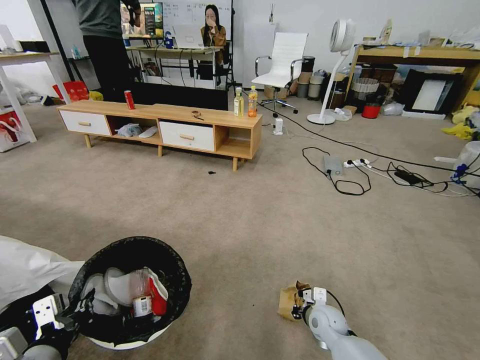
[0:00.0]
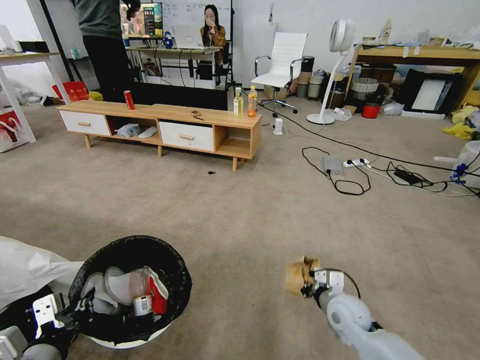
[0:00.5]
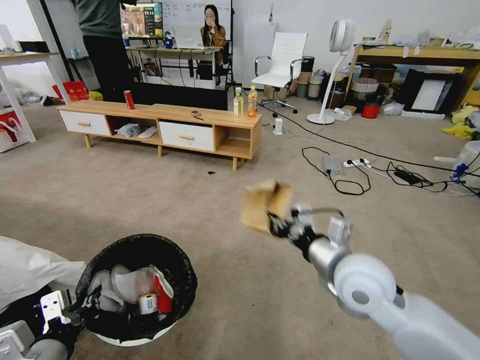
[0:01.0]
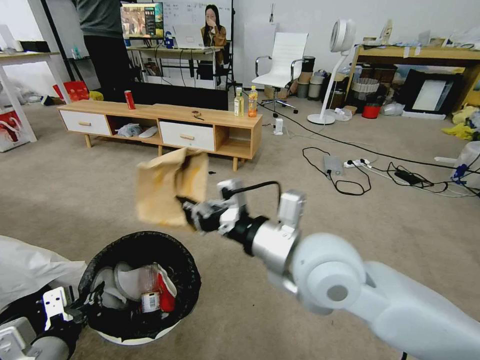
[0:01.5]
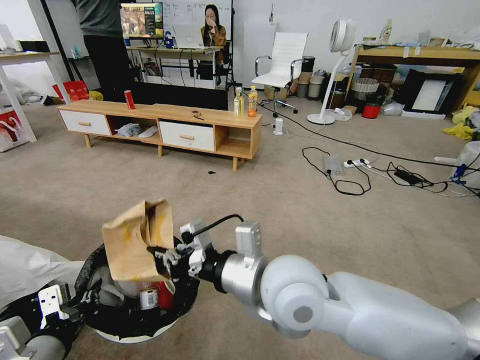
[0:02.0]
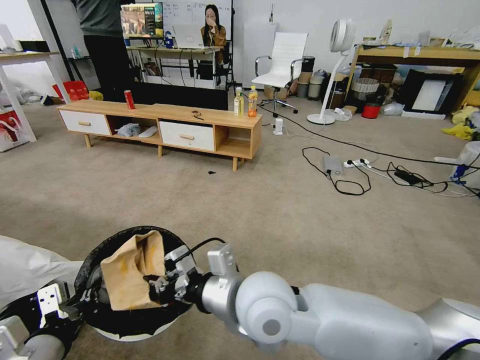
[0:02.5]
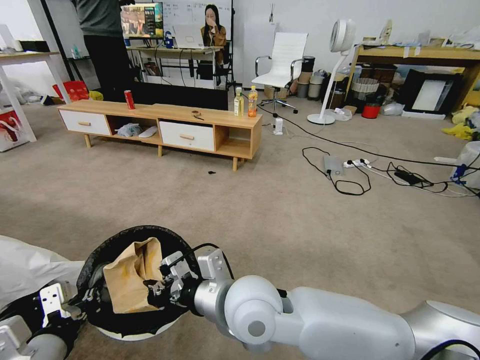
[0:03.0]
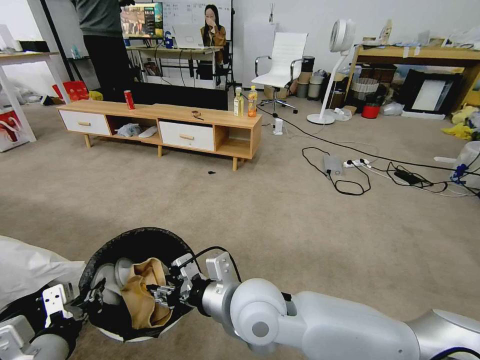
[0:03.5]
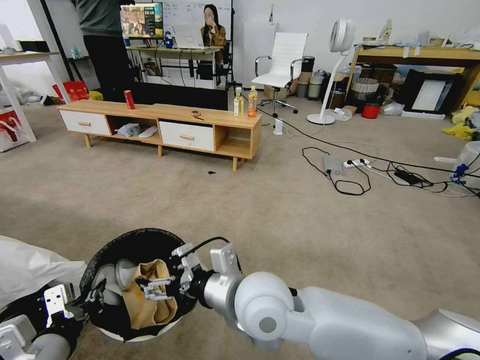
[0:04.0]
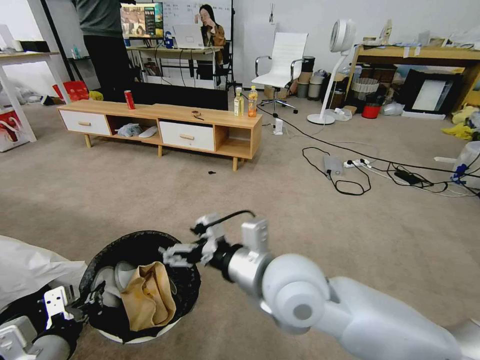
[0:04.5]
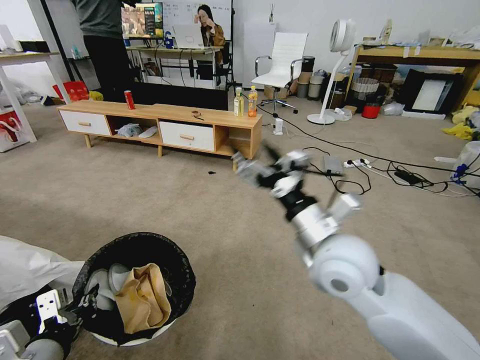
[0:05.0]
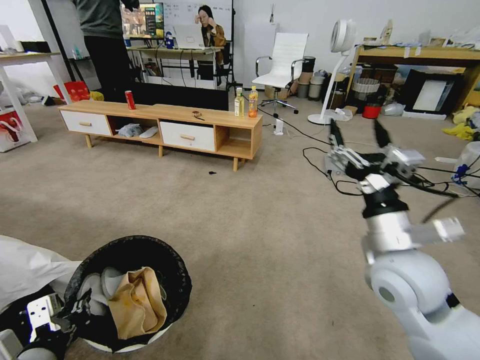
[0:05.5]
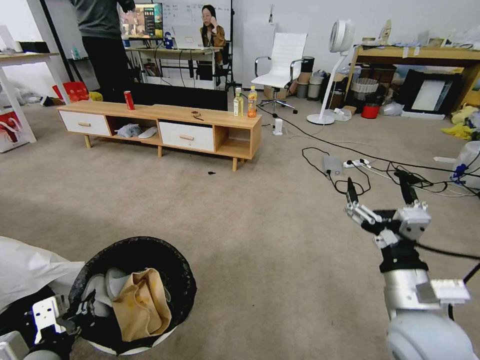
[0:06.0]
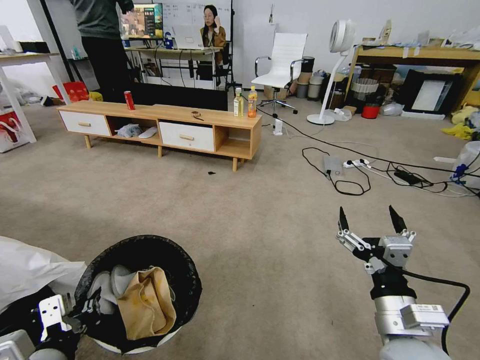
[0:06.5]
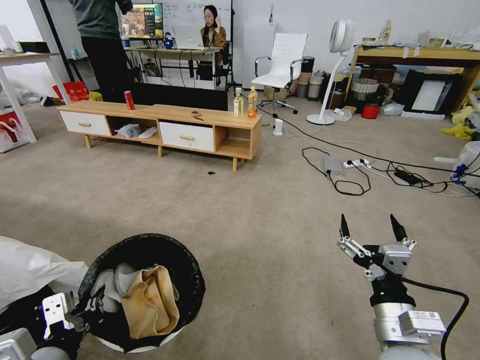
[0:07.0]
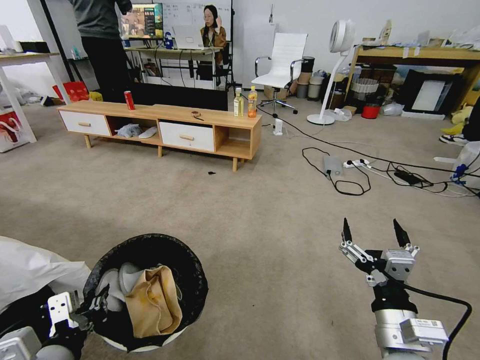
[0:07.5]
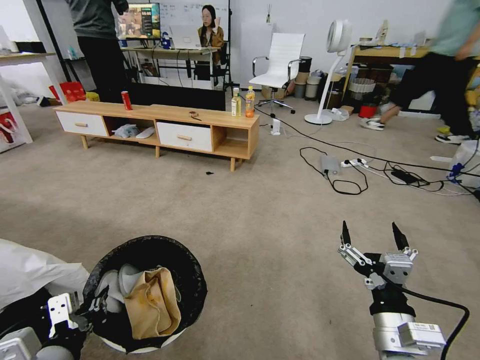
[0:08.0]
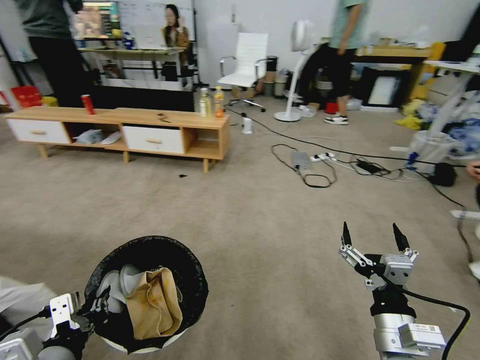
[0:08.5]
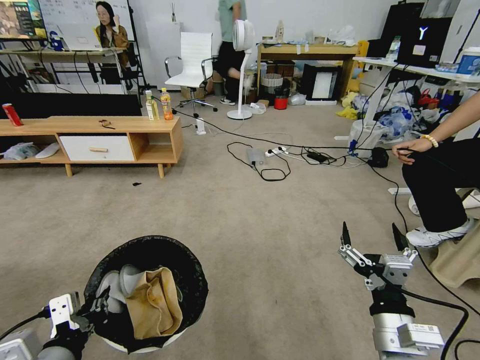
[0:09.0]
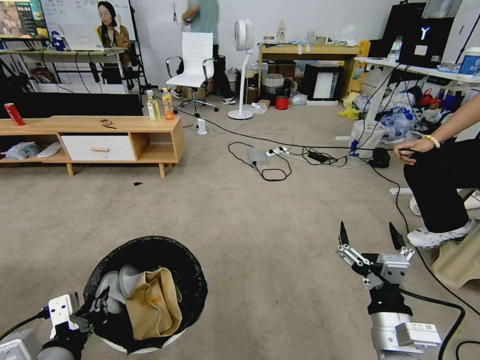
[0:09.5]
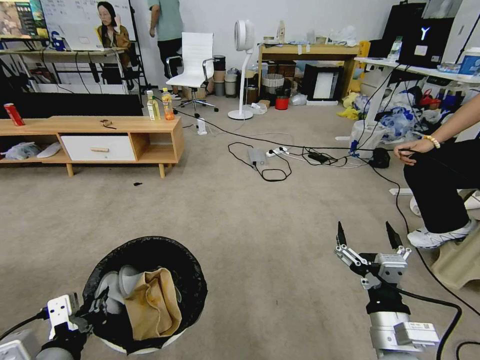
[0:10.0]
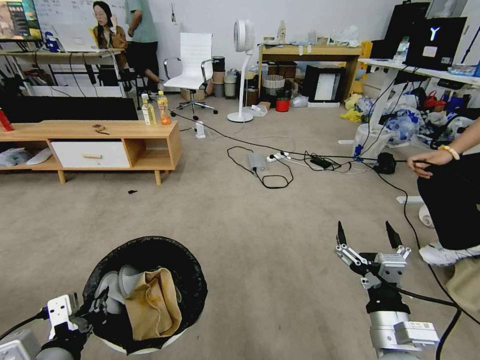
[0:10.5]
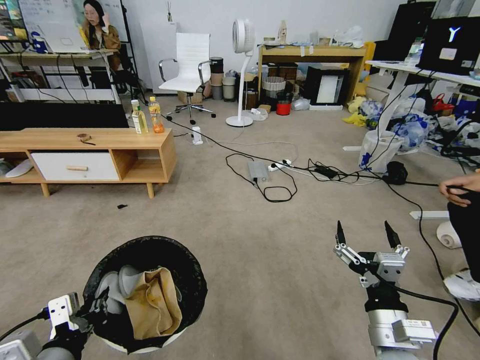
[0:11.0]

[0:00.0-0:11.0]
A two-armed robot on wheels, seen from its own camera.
Task of the whole recording: Pick up the trash bin and place the garbage on the floor into it.
0:00.0 to 0:02.0: The right gripper is displaced upward and to the left by about 40 cm.
0:02.0 to 0:03.5: The right gripper goes about 5 cm downward, and opens up.
0:03.5 to 0:05.5: The right gripper goes about 25 cm to the right, and opens.
0:05.5 to 0:07.5: The right gripper moves backward and downward, approximately 15 cm.
